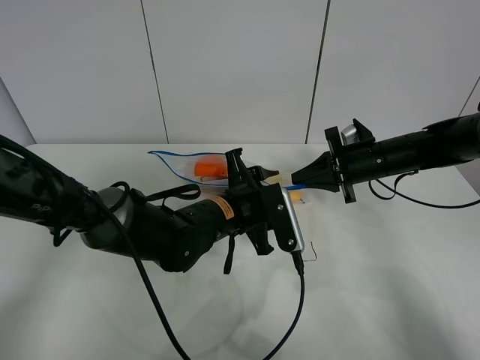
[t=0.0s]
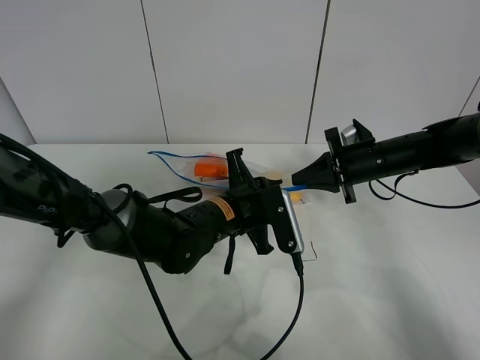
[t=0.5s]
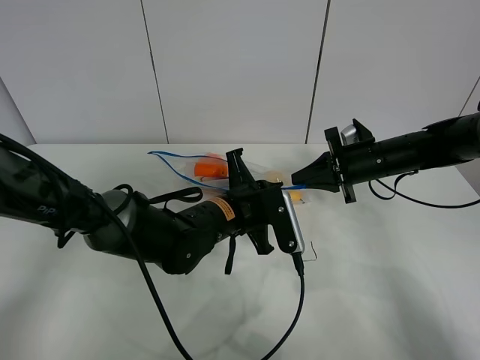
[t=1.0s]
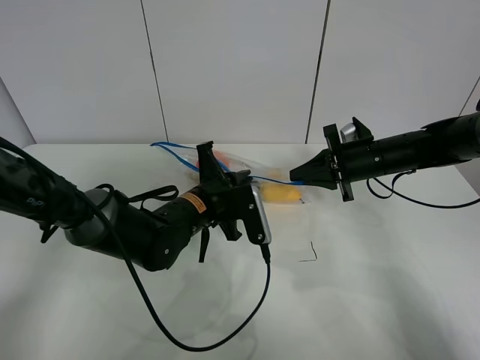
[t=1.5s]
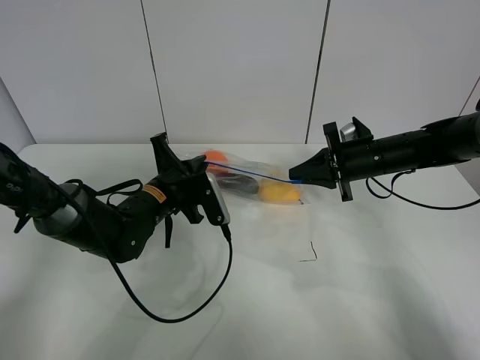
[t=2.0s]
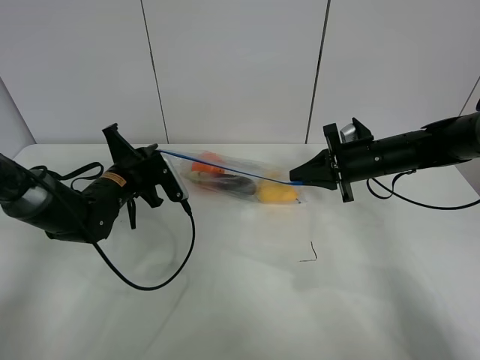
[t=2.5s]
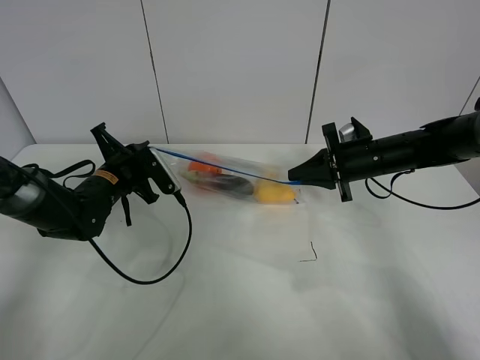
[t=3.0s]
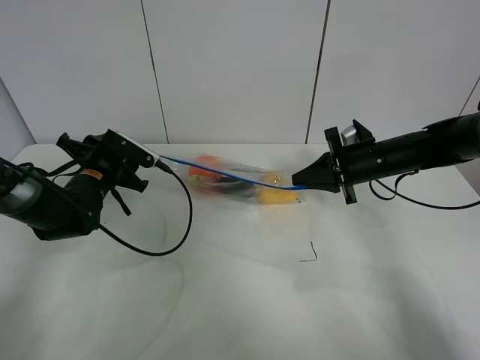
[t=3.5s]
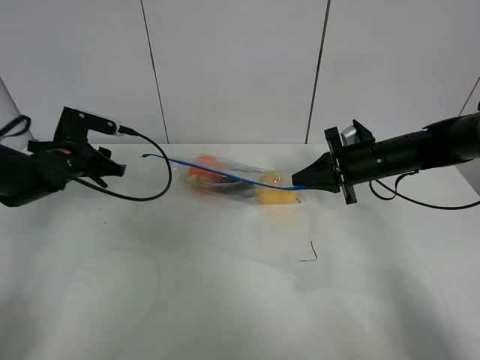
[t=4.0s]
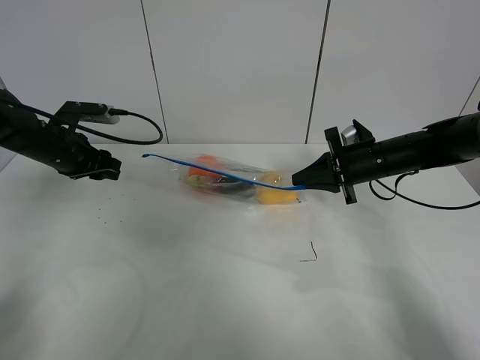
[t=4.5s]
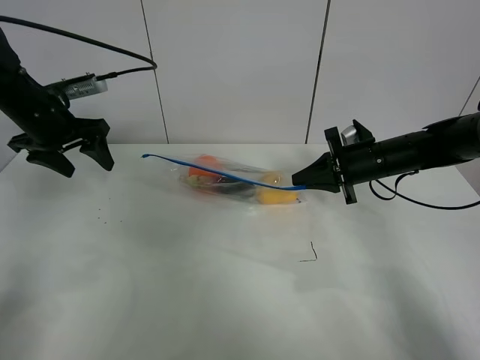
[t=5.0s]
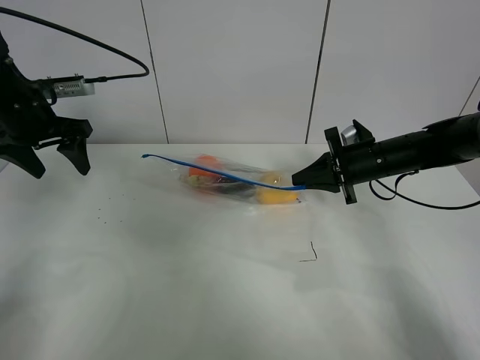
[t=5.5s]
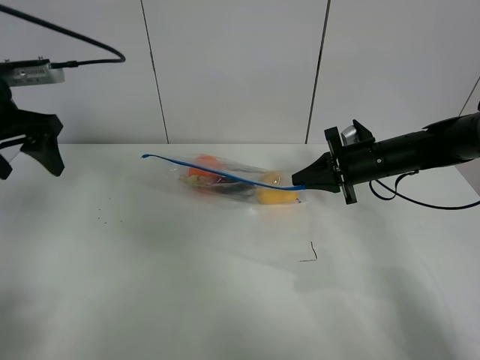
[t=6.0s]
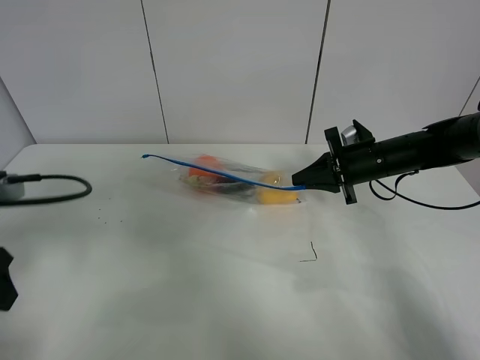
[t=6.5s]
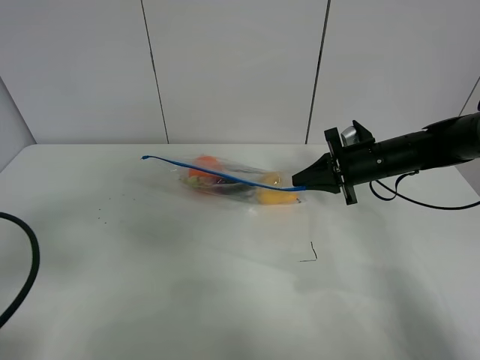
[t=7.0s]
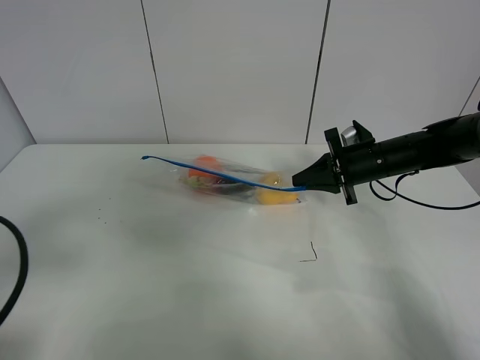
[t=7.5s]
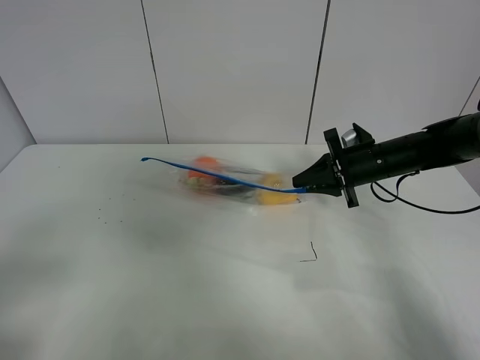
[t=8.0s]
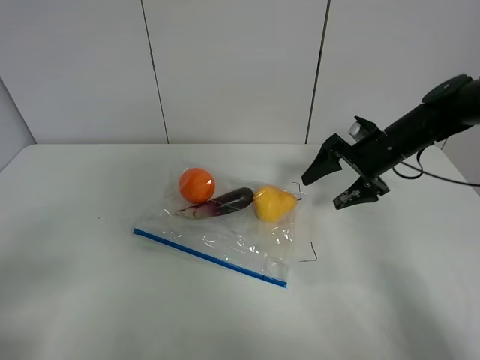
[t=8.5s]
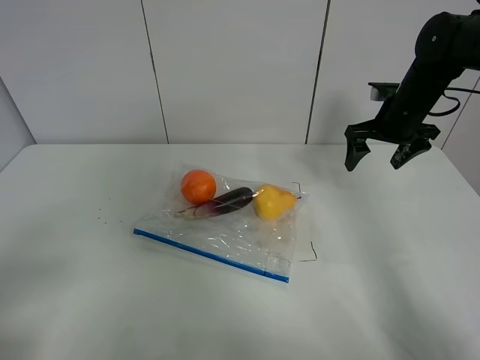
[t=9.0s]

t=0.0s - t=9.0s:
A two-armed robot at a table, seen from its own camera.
Step, t=0.0s - t=3.0s: Pull the fruit bag with left gripper.
t=0.0s - t=2.0s: The left gripper heads to the left, covering approximately 10 cm, and closes its fingers.
t=2.0s - t=4.5s: The left gripper shifts some 15 cm to the left, and opens up.
t=4.5s - t=7.0s: The left gripper heads backward, covering some 30 cm.
t=7.0s - t=9.0s: The right gripper heads upward and forward, covering some 10 cm, and opens. Meanwhile the left gripper moves backward, some 10 cm.

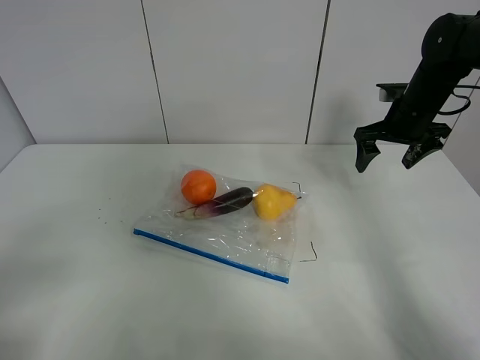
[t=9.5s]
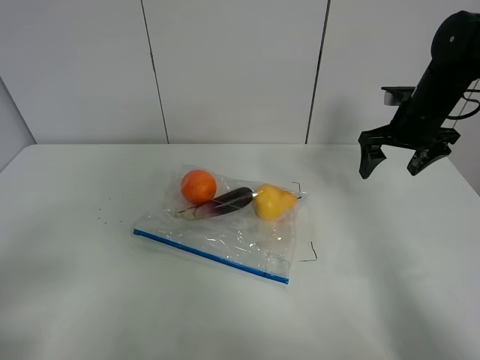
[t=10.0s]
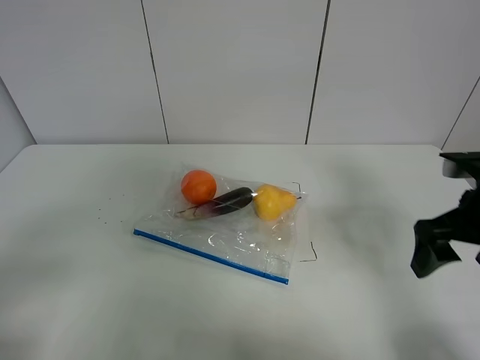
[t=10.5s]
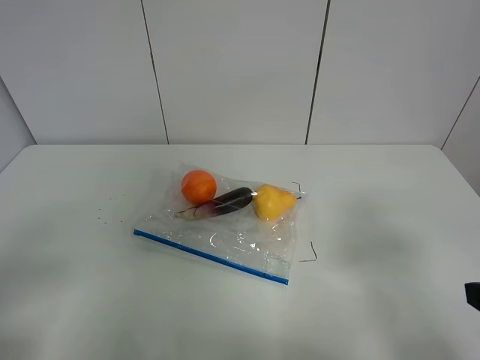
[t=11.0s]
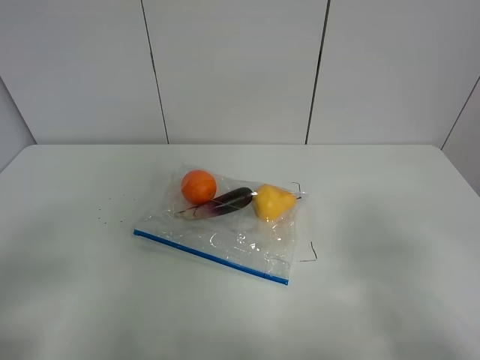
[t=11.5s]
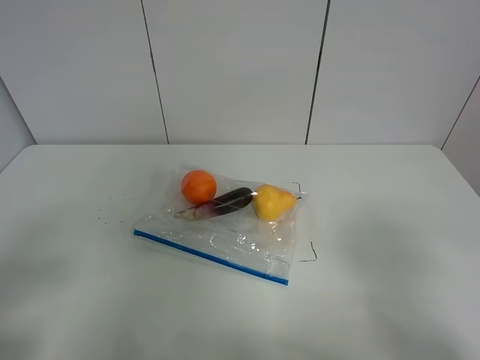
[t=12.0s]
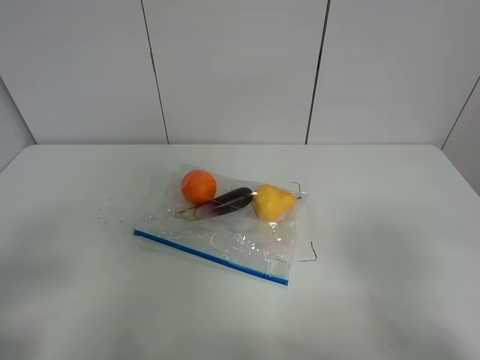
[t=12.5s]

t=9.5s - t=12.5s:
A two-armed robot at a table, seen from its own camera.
t=9.5s - t=11.0s: The right gripper shifts approximately 35 cm backward.

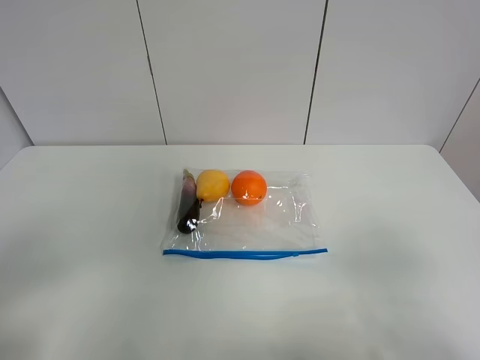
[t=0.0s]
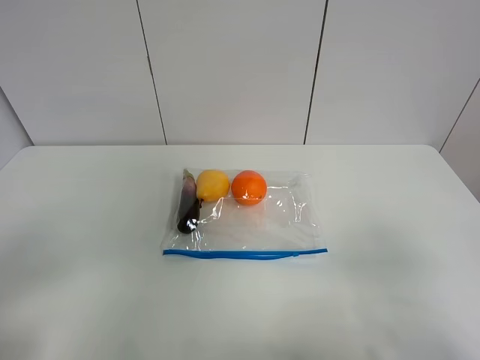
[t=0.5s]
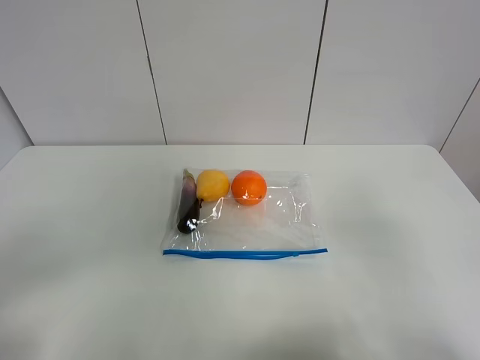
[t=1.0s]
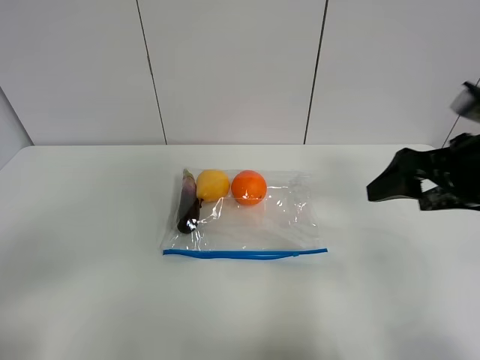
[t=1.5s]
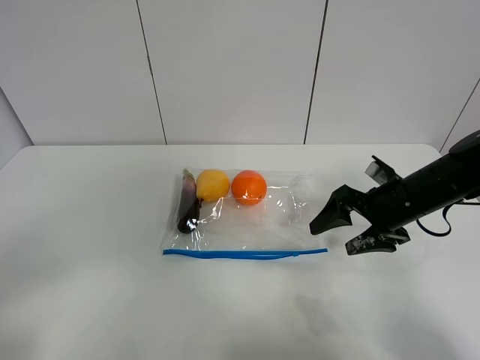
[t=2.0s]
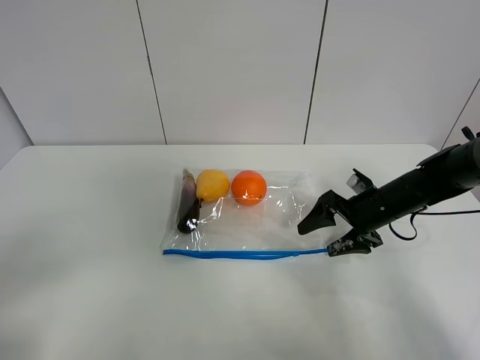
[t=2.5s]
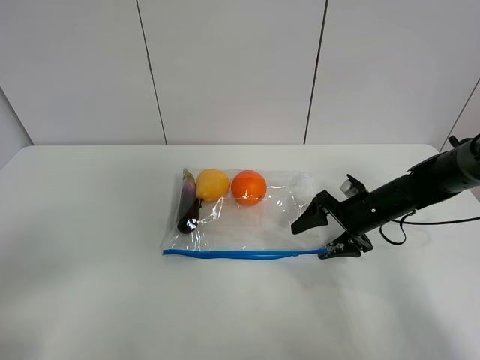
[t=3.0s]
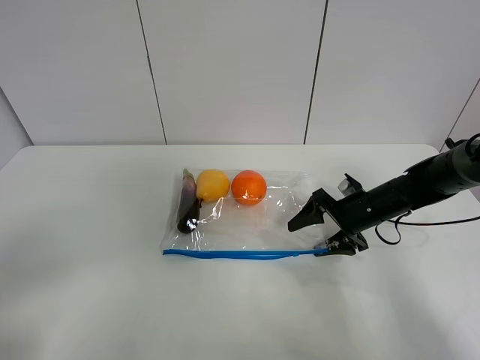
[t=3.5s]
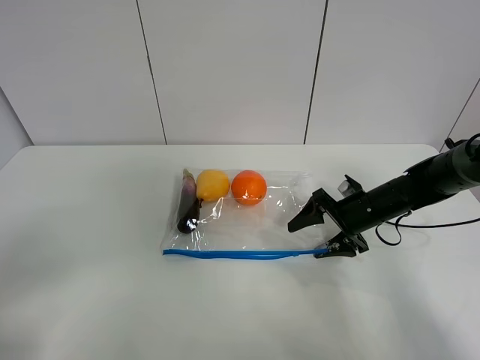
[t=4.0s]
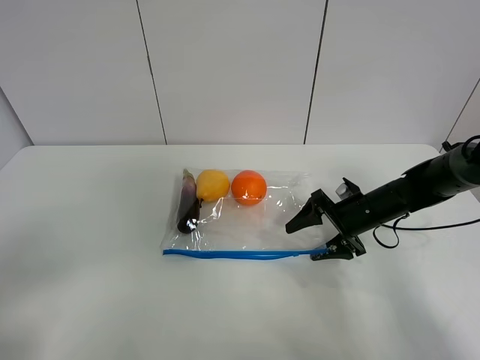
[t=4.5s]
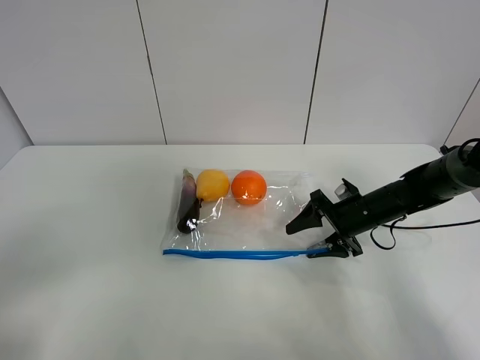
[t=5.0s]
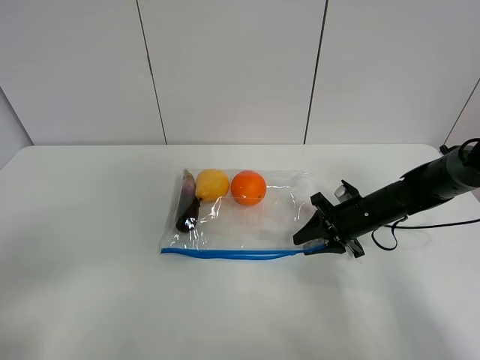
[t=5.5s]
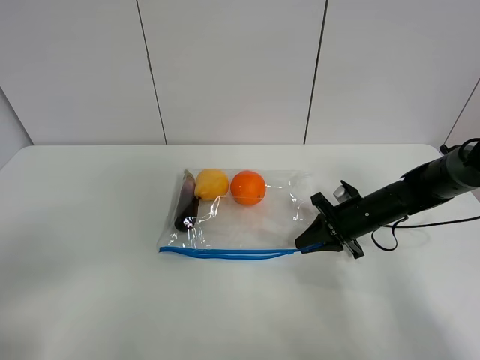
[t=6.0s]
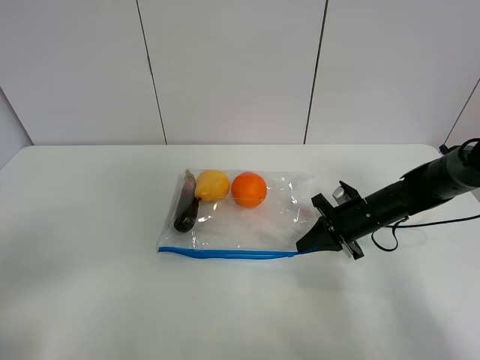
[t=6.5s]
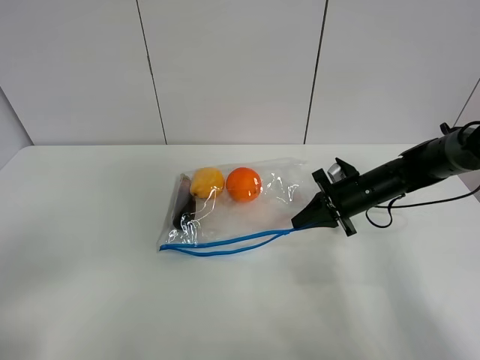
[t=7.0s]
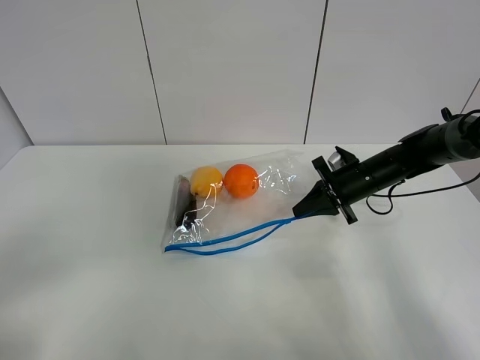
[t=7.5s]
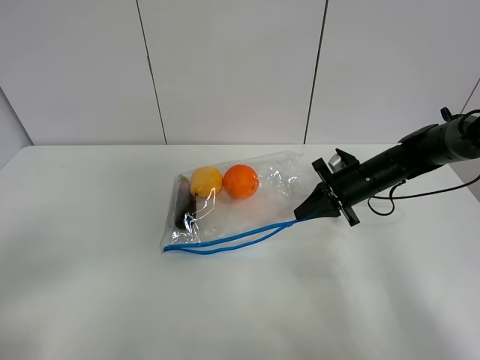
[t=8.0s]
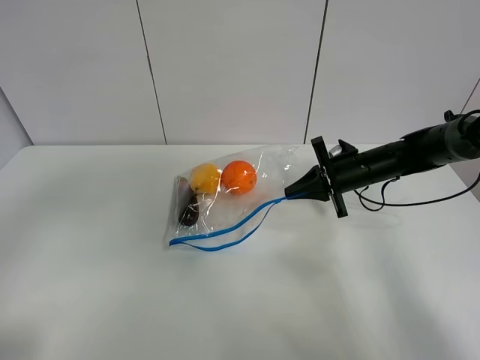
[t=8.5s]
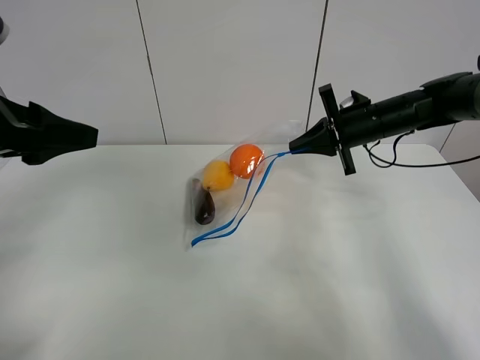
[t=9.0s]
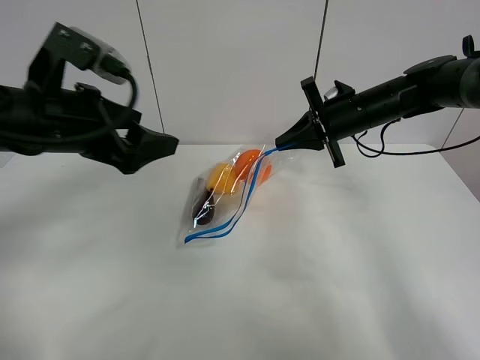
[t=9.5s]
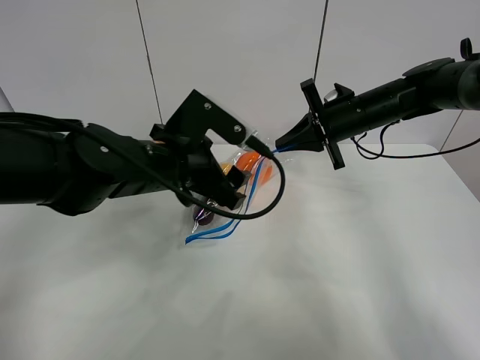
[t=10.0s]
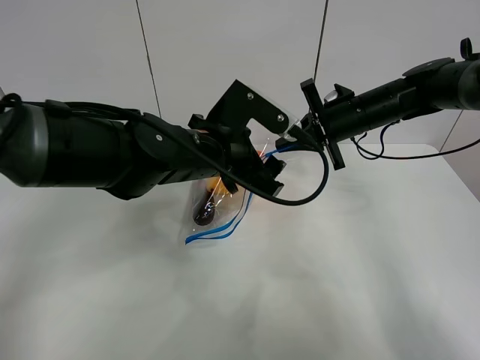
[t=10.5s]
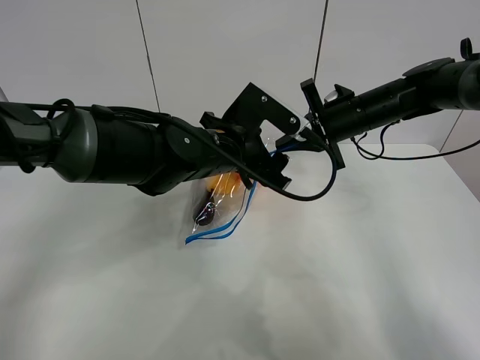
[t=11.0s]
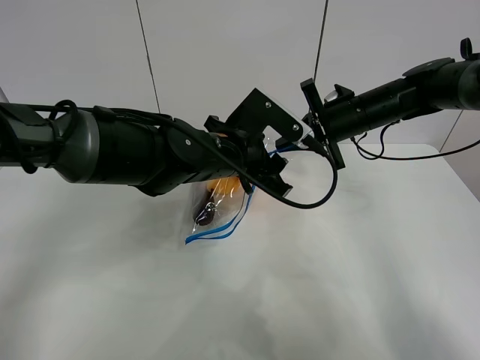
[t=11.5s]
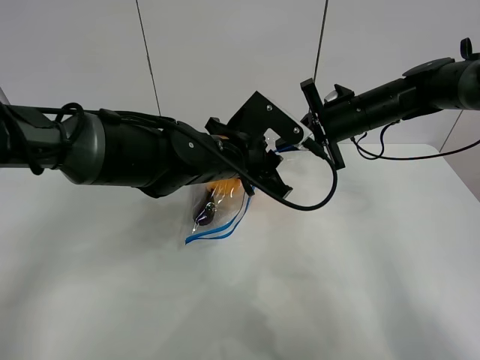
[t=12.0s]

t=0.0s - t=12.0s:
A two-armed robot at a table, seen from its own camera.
Step, t=0.0s - t=6.0s: Grasp the fruit bag with right gripper.
Step, t=6.5s - t=9.0s: Lift the fruit bag with your right gripper.
t=0.0s - t=2.0s: The right gripper heads forward and downward, covering about 30 cm.
t=2.0s - t=4.0s: The right gripper moves downward and forward, about 10 cm.
t=4.0s - t=6.0s: The right gripper closes its fingers.
t=6.0s - t=8.0s: The right gripper changes place by roughly 5 cm.
t=8.0s - t=10.0s: The right gripper goes roughly 10 cm upward; the left gripper heads forward and to the right, covering approximately 35 cm.
t=10.0s - t=12.0s: The left gripper goes approximately 5 cm to the right, and closes.

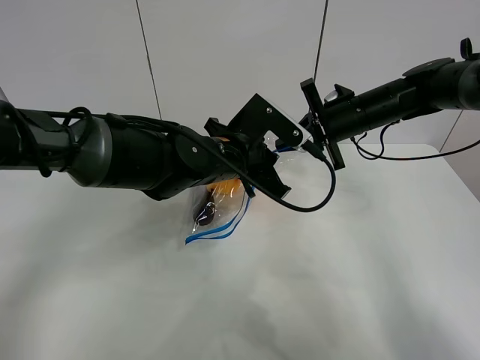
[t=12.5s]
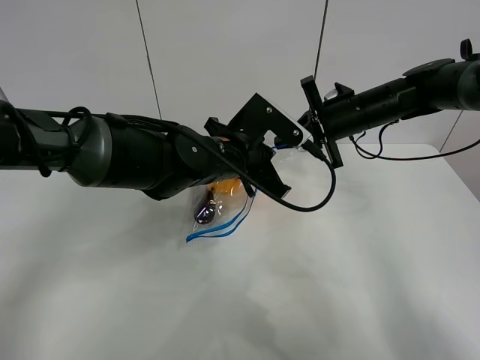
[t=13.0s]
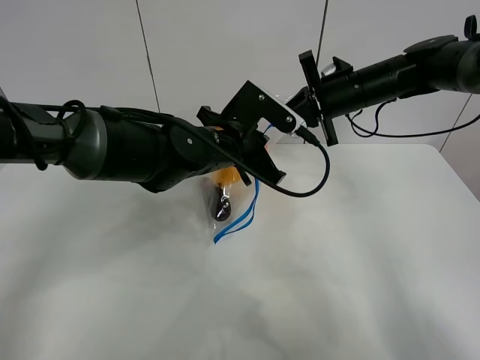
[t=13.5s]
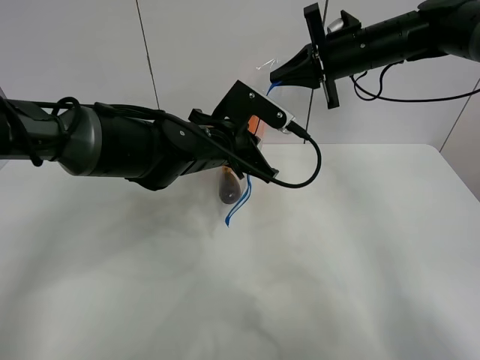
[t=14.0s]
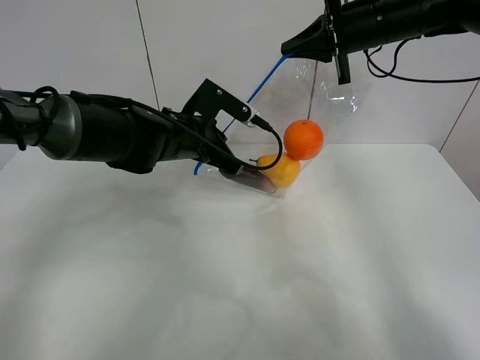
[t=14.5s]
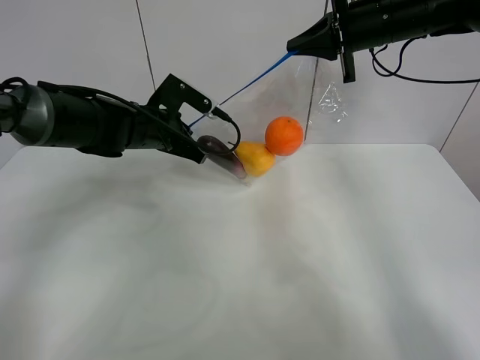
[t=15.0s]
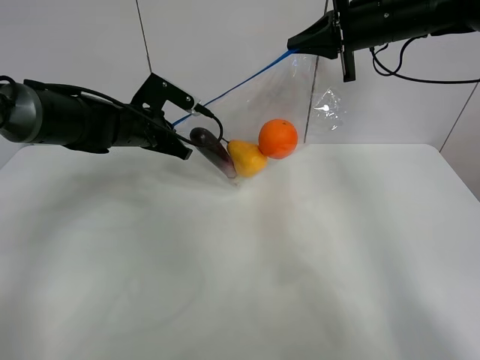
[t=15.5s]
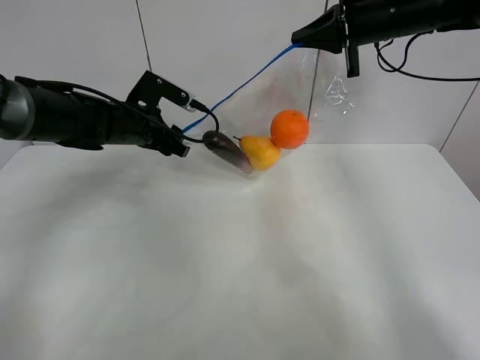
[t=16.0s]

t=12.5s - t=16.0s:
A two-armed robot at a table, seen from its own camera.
Step, t=12.5s - t=16.0s: Pull the fruit bag with left gripper.
t=12.5s - t=14.5s: The left gripper heads to the left, covering about 5 cm, while the right gripper shifts approximately 10 cm upward.
t=14.5s - t=16.0s: The left gripper heads to the left, covering roughly 10 cm, and opens its fingers.
